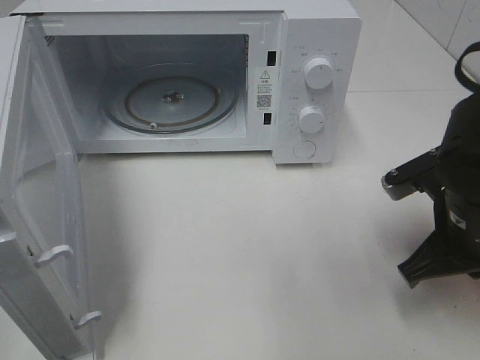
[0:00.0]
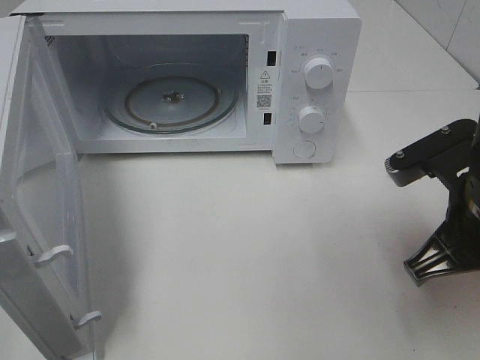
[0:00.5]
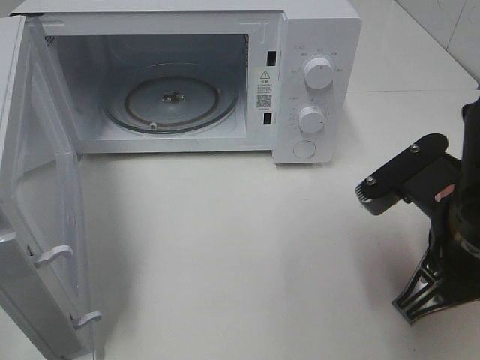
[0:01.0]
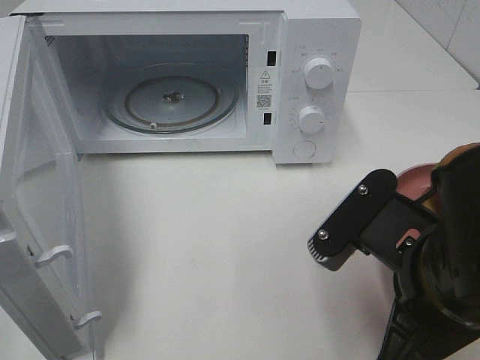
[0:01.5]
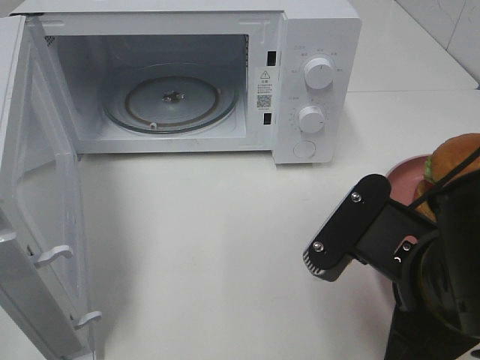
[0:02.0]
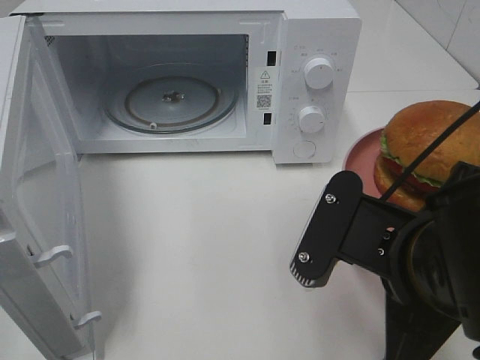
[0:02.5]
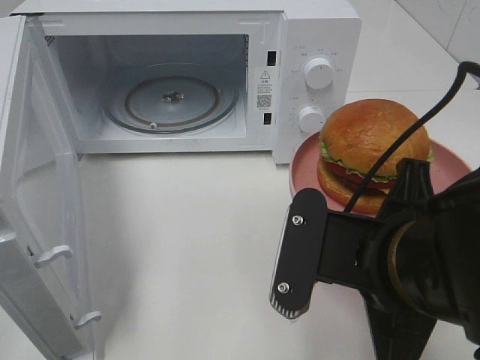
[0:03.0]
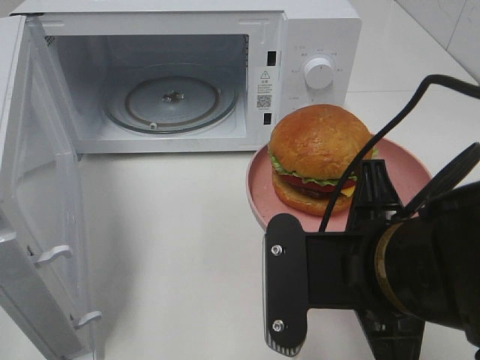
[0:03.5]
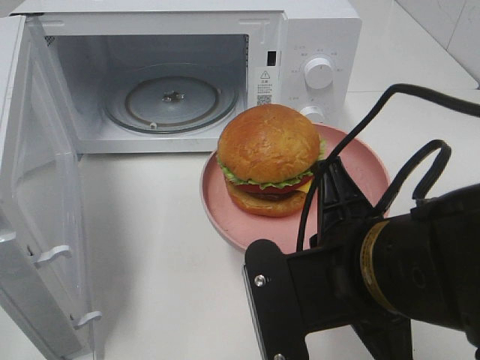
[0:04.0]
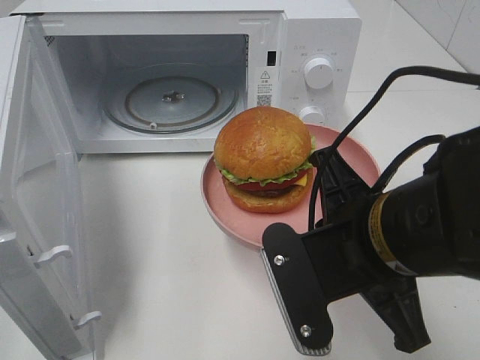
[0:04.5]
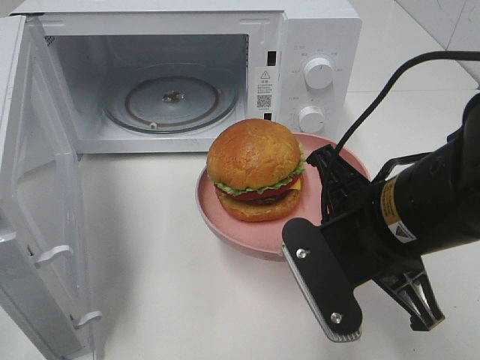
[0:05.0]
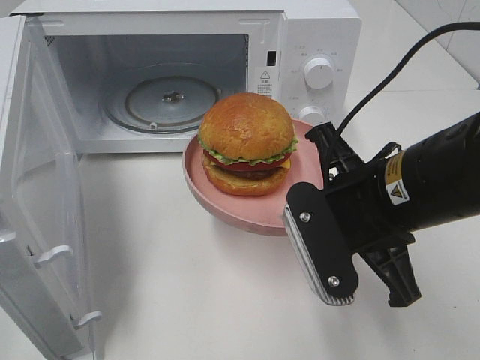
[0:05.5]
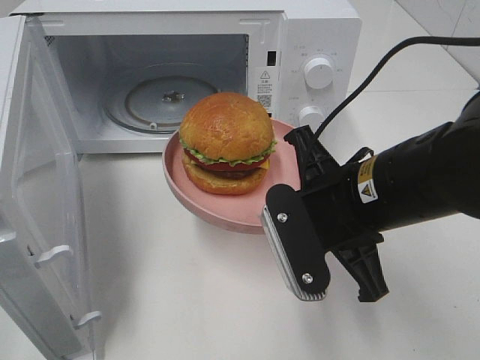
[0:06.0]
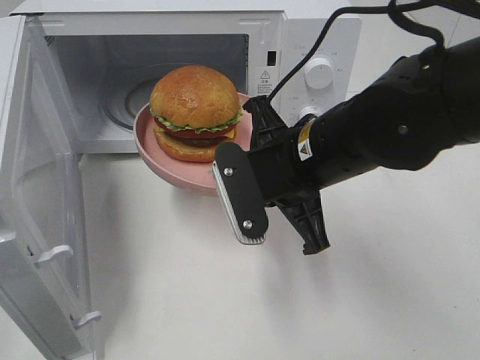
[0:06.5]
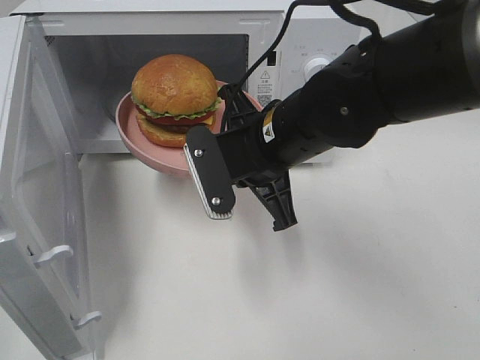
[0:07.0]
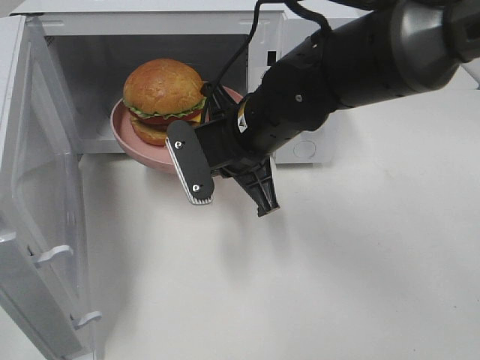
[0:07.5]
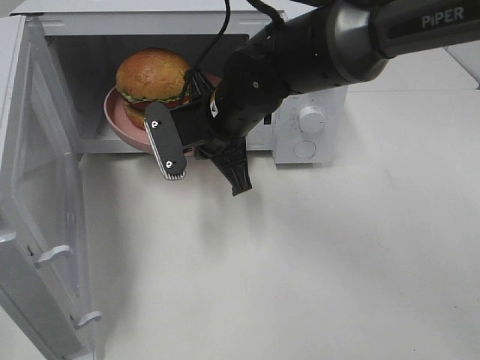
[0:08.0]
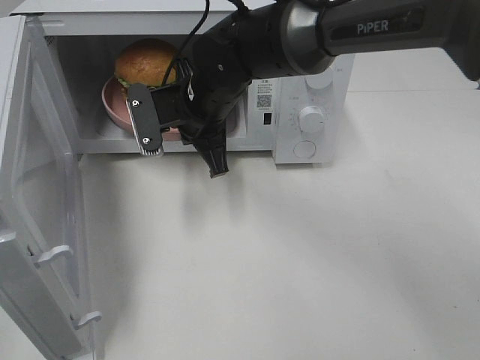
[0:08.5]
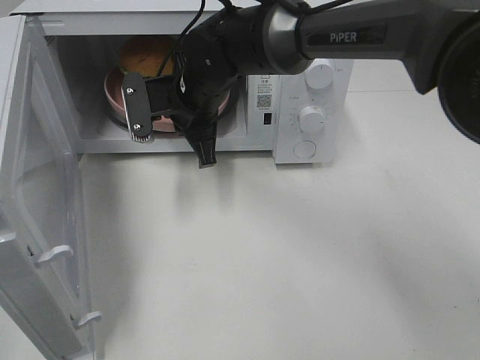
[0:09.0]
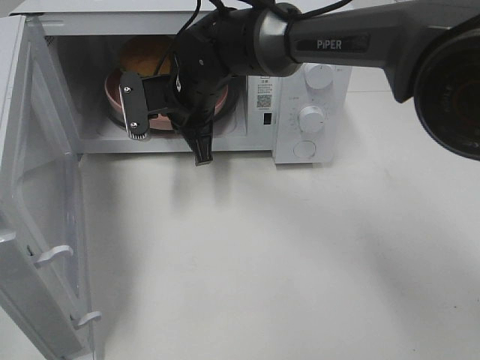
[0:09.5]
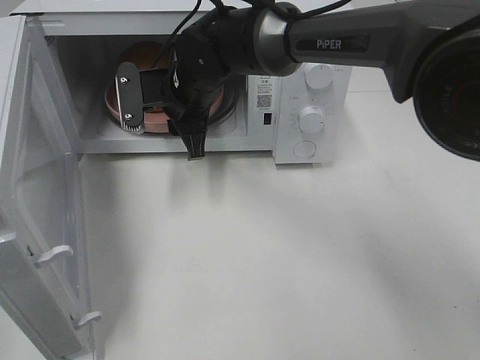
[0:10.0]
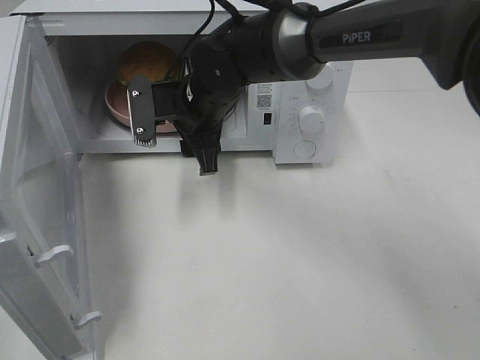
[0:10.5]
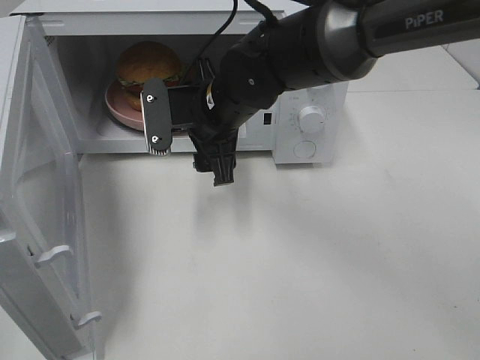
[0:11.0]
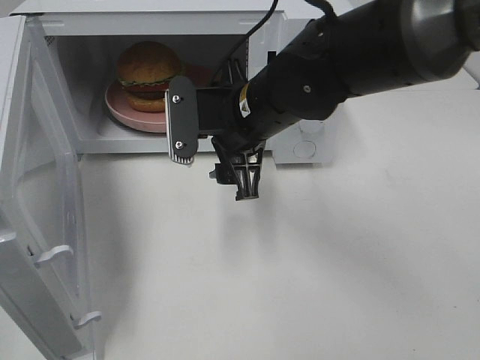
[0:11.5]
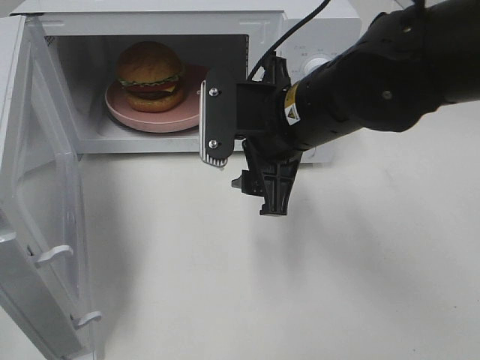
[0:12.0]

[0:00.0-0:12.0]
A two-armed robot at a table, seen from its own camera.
Task of the whole recording: Heat the burger.
Step, 0:00.0 to 0:09.5: Right hand: place the plate in the microwave.
0:00.0 to 0:02.0: The right gripper goes approximately 15 cm backward and to the left.
0:04.0 to 0:06.0: The right gripper shifts roughly 10 cm forward.
0:06.0 to 0:08.0: The right gripper goes some 20 cm forward and to the left.
0:08.0 to 0:10.0: The right gripper moves forward, roughly 5 cm, and opens up.
0:10.0 to 0:12.0: The right gripper is displaced backward and to the right by approximately 20 cm.

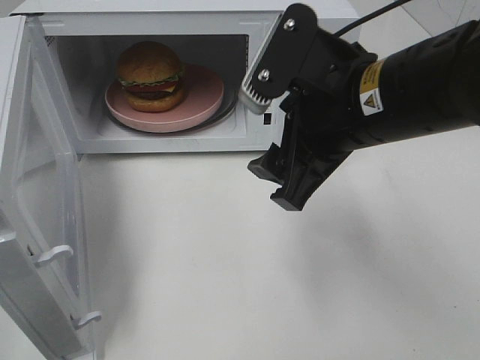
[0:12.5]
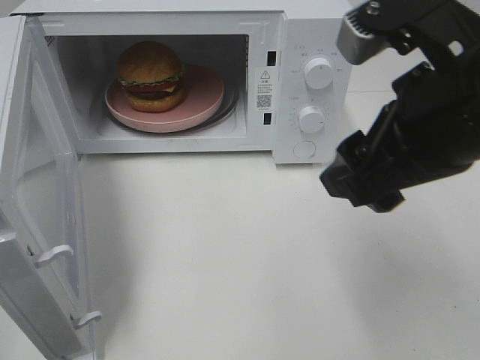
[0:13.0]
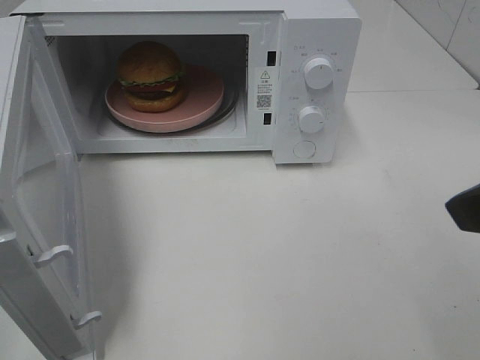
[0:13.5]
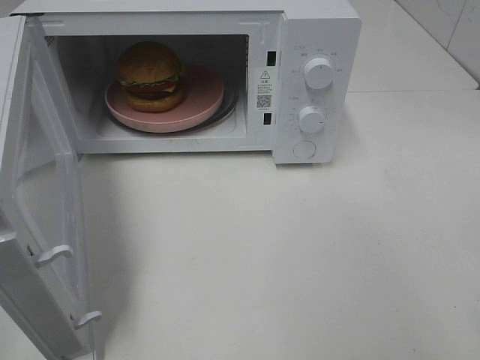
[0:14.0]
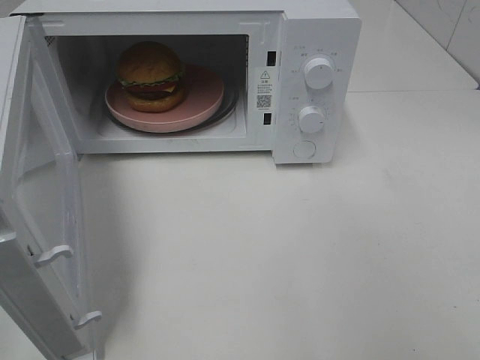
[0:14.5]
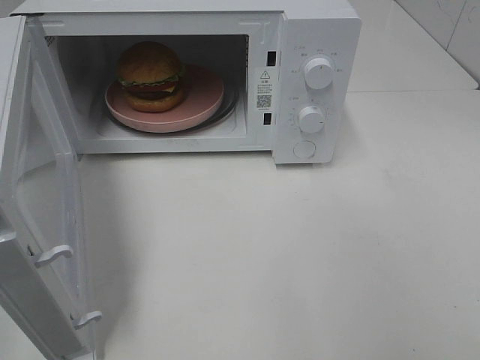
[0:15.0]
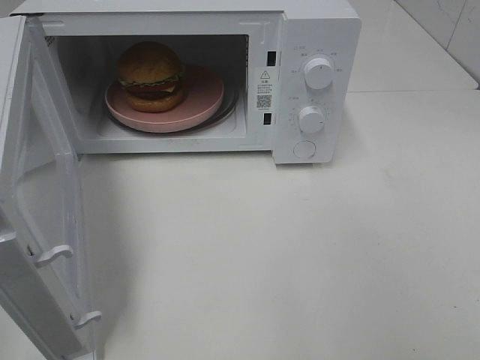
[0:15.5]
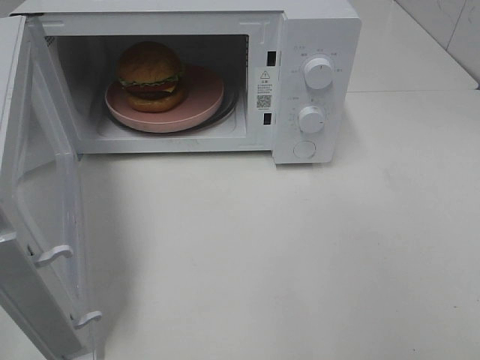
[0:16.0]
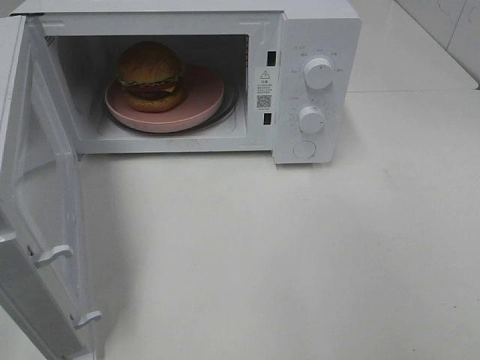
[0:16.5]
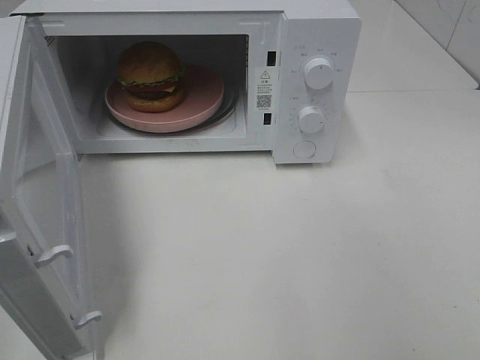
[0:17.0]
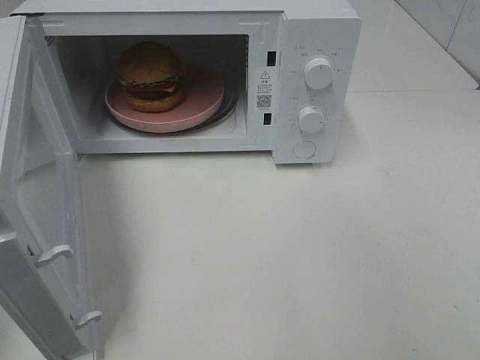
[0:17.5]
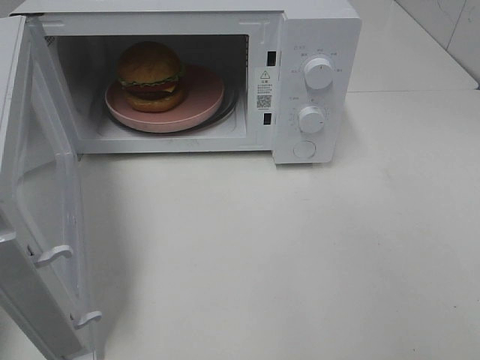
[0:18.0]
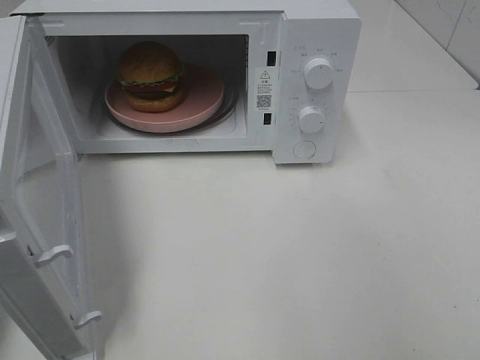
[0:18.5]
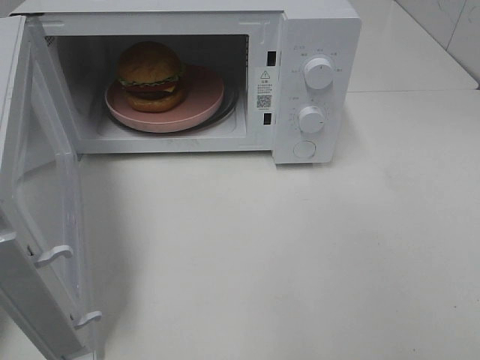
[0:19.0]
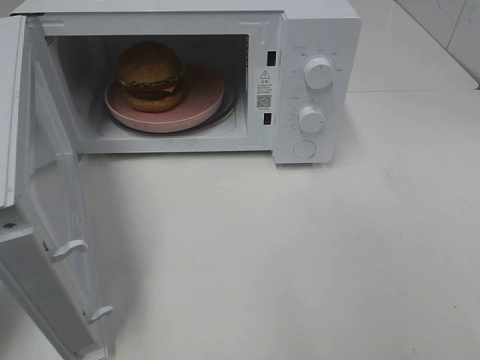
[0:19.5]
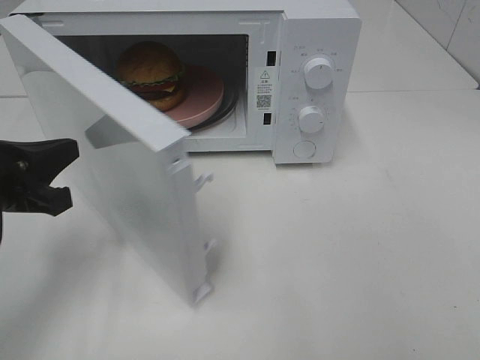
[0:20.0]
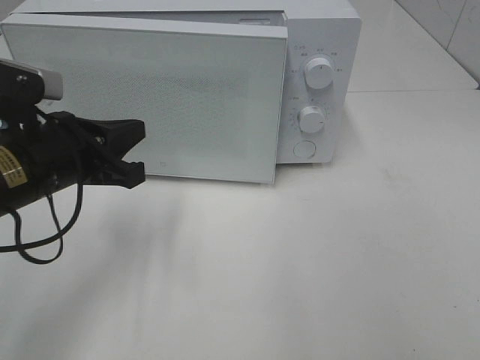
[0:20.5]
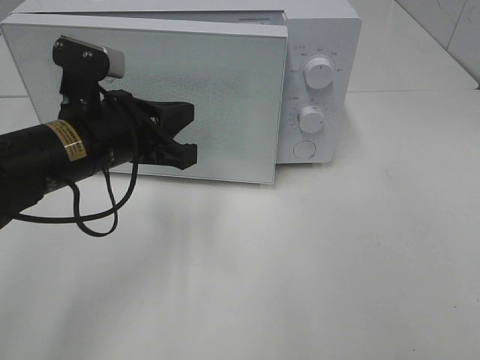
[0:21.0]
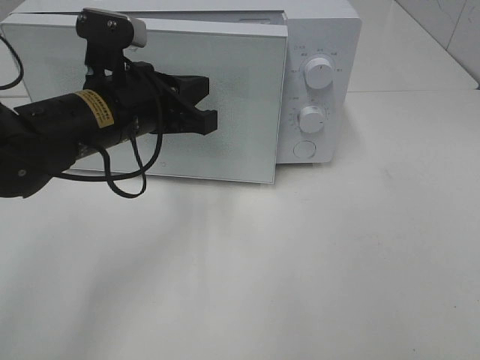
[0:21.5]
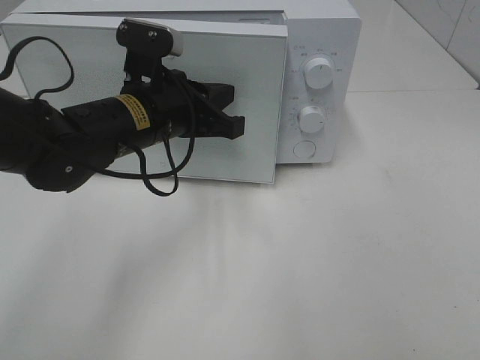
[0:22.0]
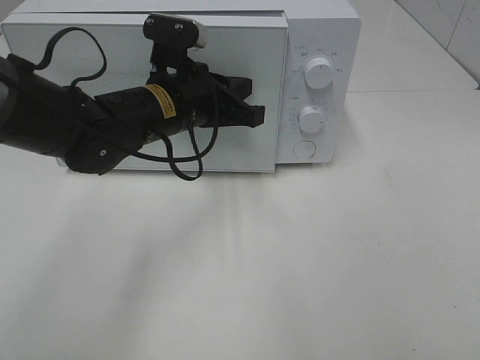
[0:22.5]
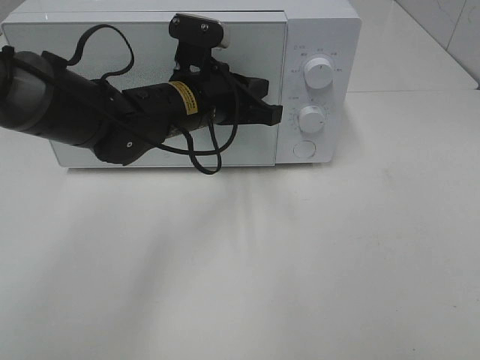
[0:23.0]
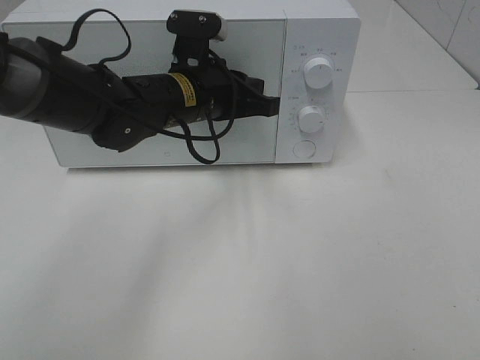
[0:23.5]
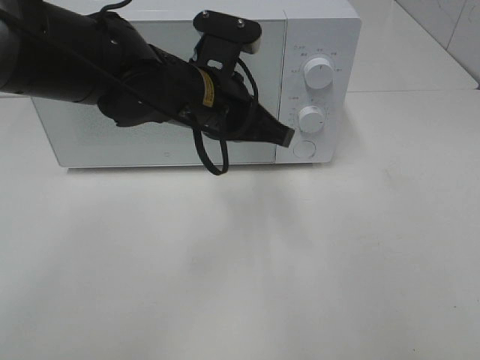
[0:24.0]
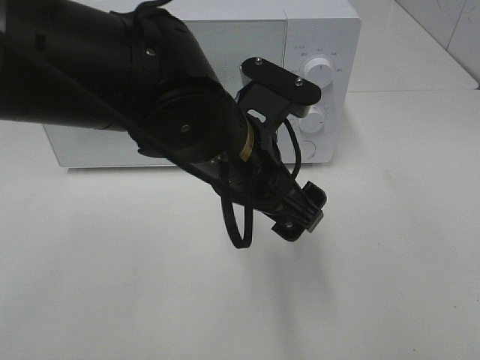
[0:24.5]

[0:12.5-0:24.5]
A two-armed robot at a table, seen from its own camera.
Task of the whole recording: Heat the burger.
Step, 0:12.5 to 0:23.5: Left hand: close the microwave door.
0:12.5 to 0:14.5: The right gripper shifts approximately 25 cm to the right and backward.
0:18.5 to 0:20.5: The left gripper is displaced to the right, forward and downward by about 20 cm.
0:20.5 to 0:22.5: The left gripper heads to the right and forward, covering some 15 cm.
0:22.5 to 0:24.5: The left gripper shifts about 15 cm backward and to the right, and opens.

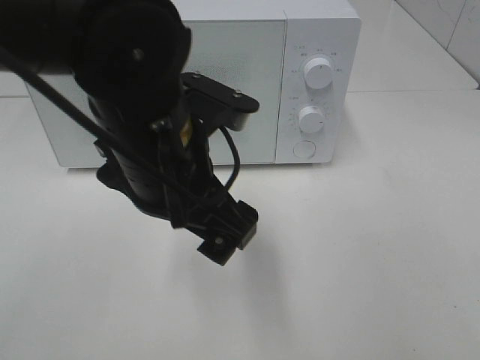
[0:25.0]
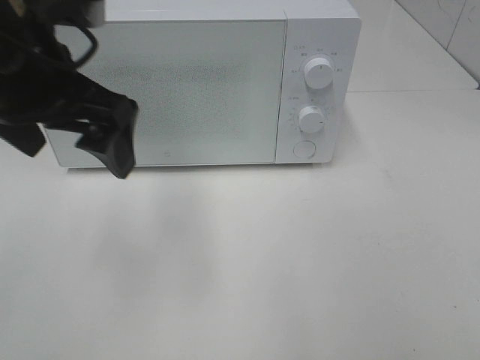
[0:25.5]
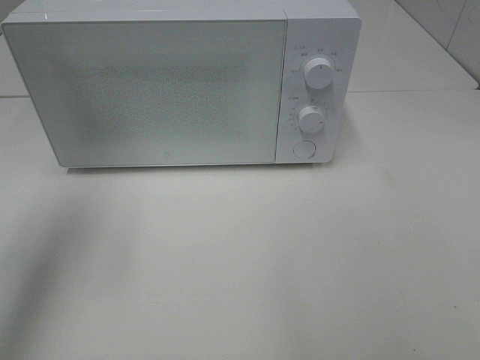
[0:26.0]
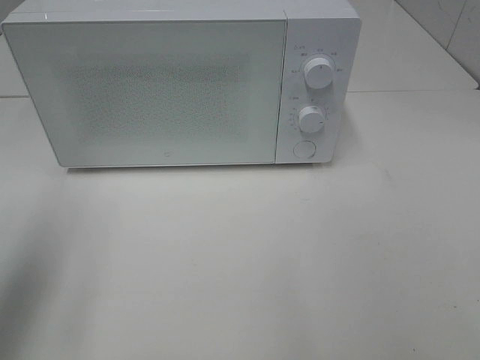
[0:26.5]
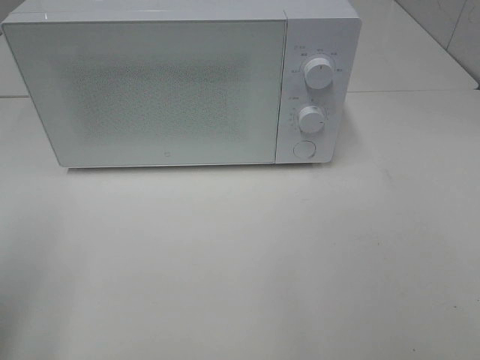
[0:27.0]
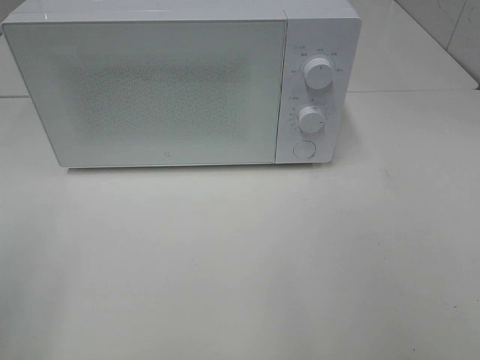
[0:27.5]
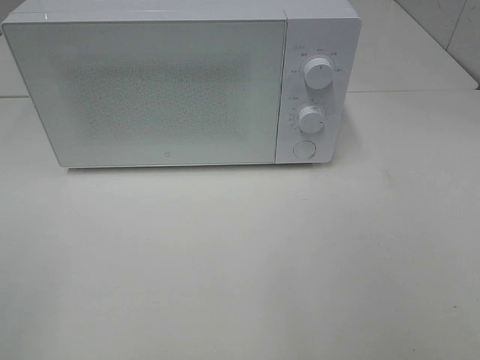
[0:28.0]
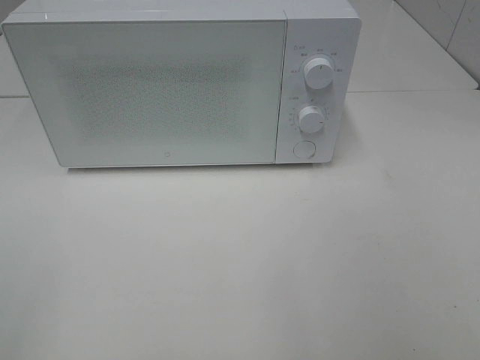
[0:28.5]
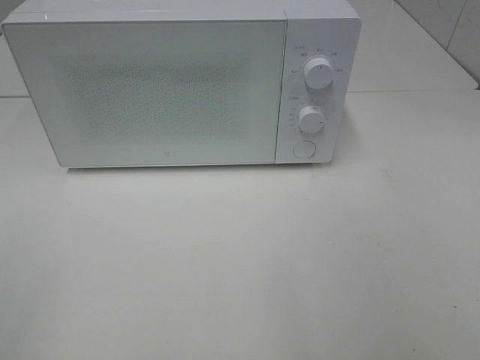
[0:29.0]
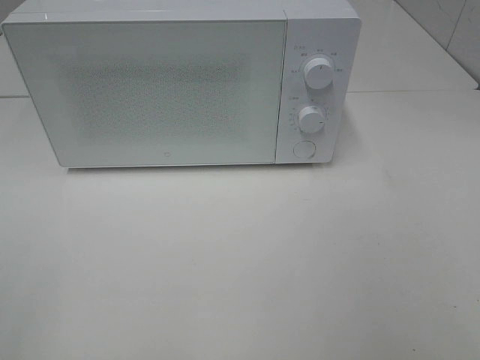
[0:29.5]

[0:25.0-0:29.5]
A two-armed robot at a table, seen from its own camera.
Task of the whole recording: Heat the burger.
0:25.0 to 0:27.0: The left gripper shifts some 30 cm to the left and backward.
